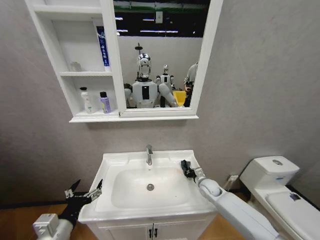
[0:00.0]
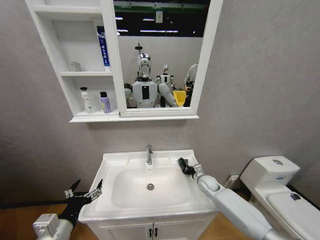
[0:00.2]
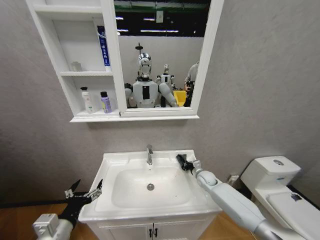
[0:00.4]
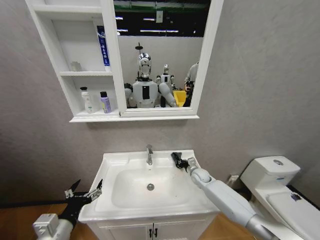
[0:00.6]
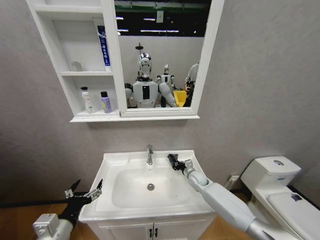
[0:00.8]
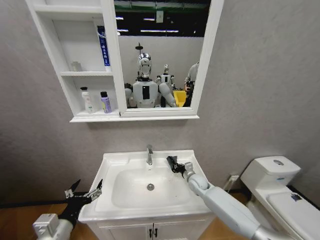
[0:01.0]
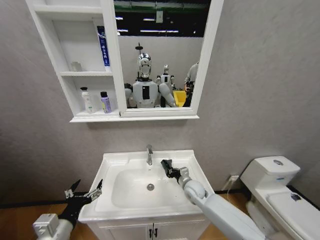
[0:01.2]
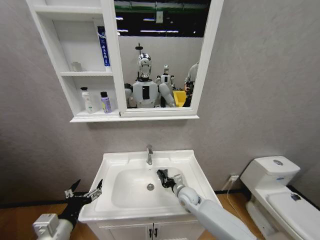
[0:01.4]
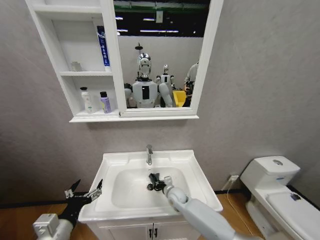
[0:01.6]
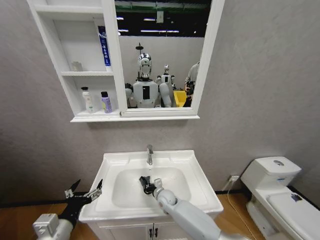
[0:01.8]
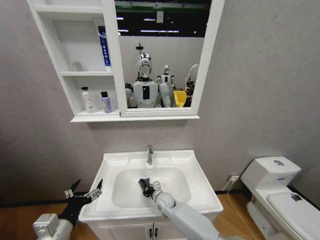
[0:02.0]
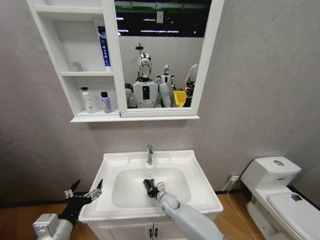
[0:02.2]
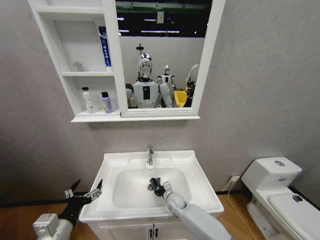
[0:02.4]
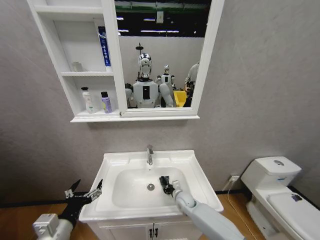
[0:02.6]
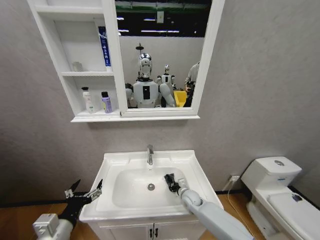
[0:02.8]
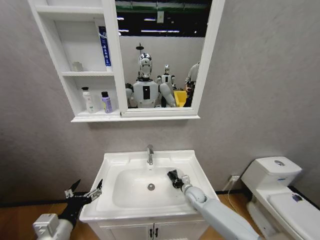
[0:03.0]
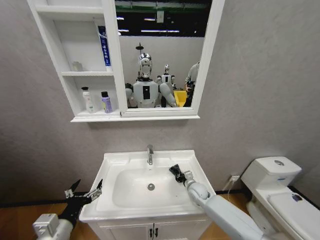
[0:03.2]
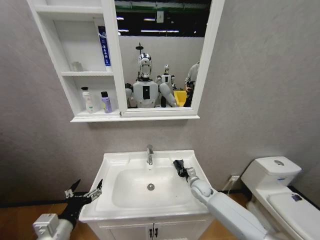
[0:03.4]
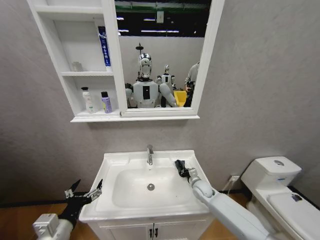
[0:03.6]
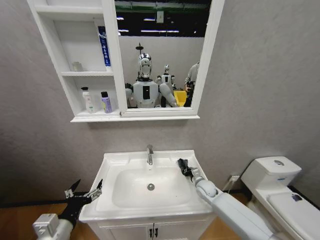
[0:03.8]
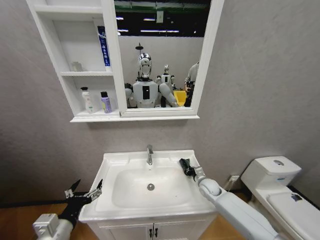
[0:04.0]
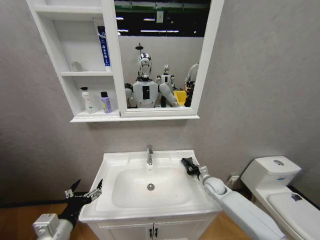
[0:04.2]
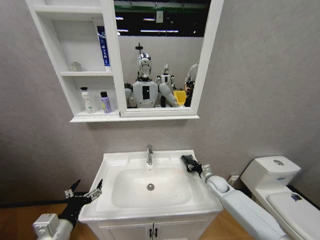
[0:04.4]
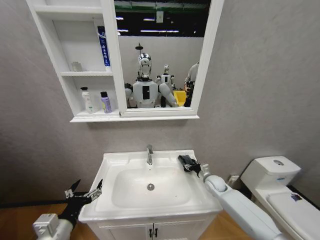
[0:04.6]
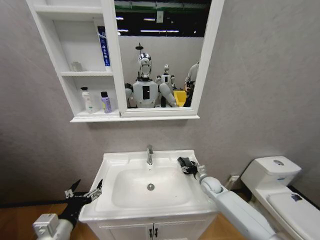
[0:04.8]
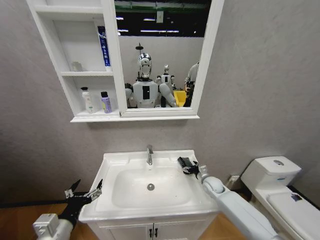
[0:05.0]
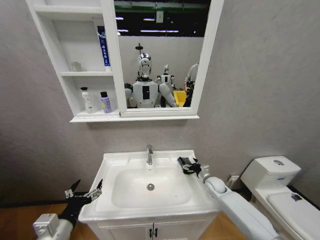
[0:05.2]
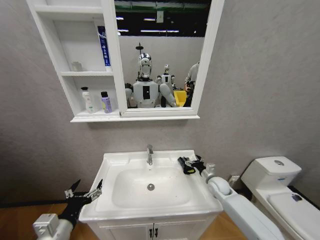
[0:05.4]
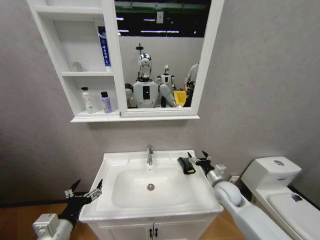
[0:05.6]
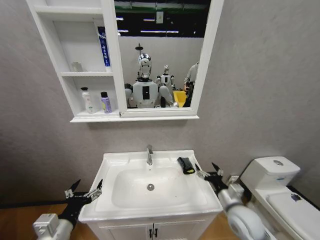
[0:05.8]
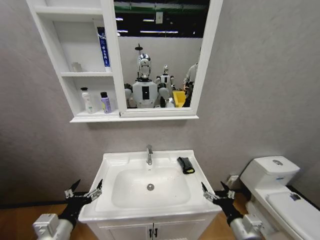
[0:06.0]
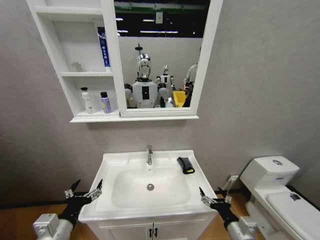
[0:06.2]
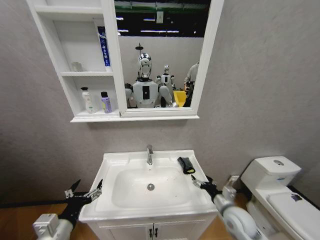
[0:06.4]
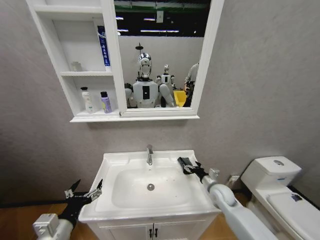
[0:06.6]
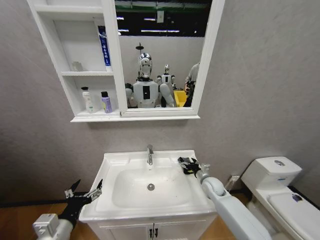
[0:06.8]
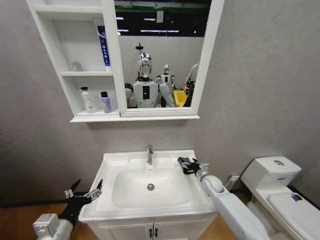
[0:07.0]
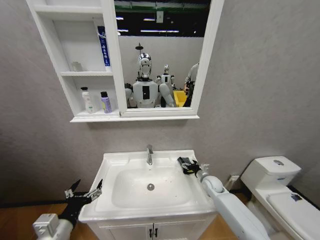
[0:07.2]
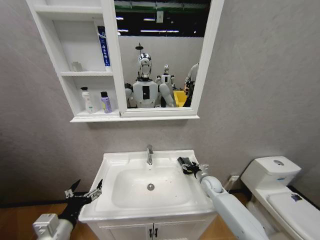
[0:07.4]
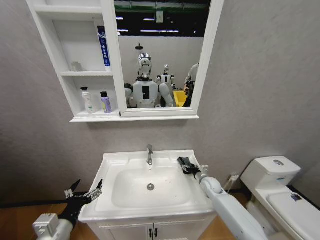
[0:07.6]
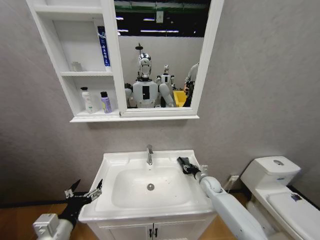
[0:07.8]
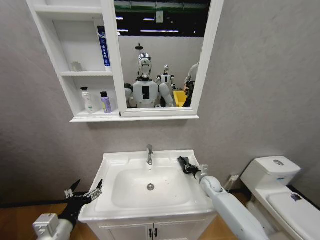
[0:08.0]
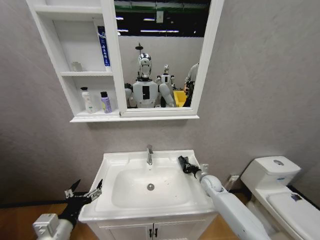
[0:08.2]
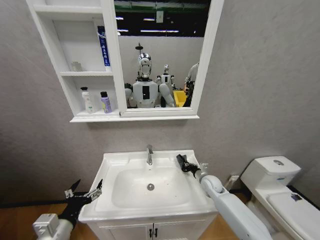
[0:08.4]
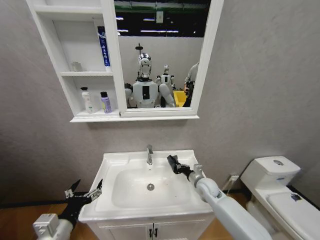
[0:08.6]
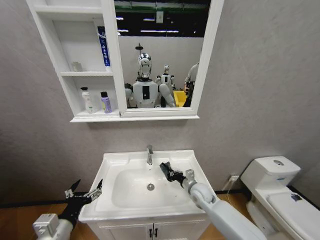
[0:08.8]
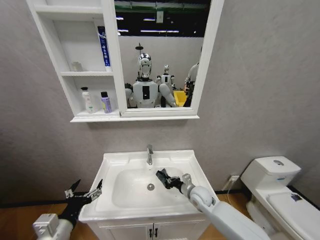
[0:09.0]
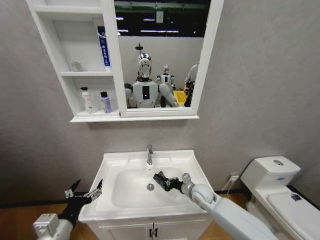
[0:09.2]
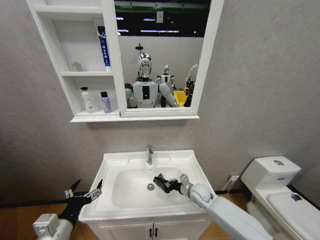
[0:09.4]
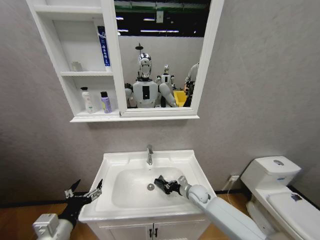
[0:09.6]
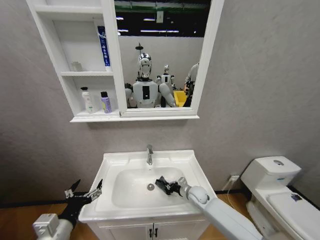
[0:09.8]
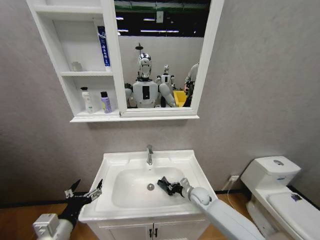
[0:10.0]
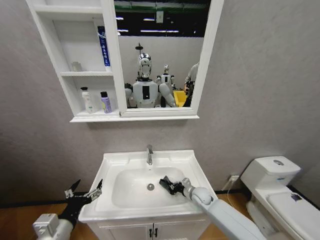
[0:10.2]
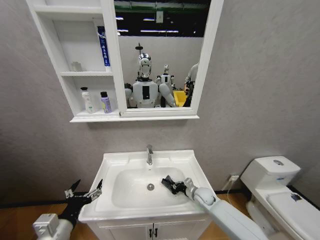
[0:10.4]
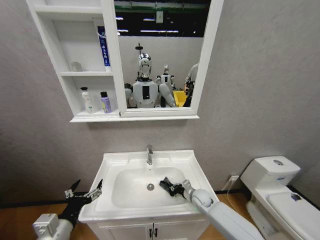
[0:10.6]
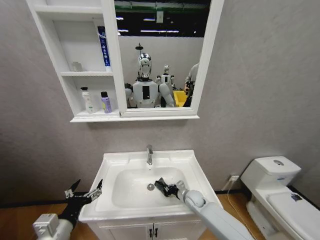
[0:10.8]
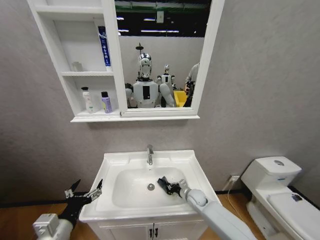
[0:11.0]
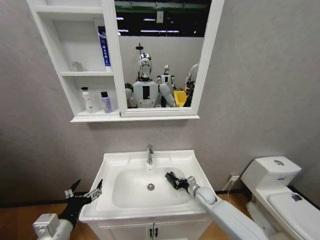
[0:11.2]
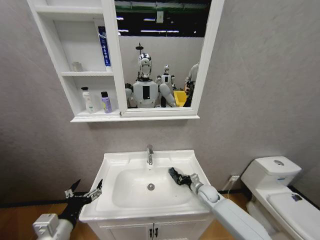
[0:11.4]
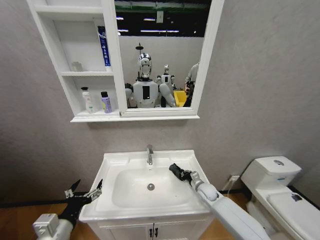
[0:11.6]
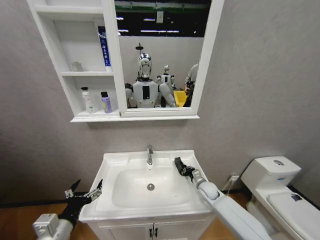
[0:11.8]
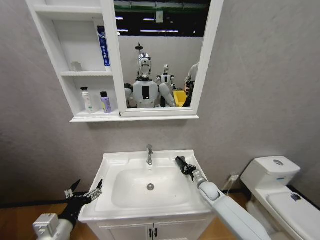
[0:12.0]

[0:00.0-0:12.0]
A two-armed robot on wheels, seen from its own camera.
Task of the whole recording: Move facial cleanser and shampoo from washbasin to cabinet, then wipe washbasin with towel.
0:00.0 to 0:01.6: The right gripper travels to the left by about 15 cm.
0:01.6 to 0:03.0: The right gripper goes roughly 10 cm to the right.
0:03.0 to 0:04.4: The right gripper travels to the right by some 10 cm.
0:04.4 to 0:06.0: The right gripper moves backward, about 25 cm, and opens up.
0:06.0 to 0:07.6: The right gripper shifts approximately 25 cm forward.
0:07.6 to 0:09.0: The right gripper shifts some 10 cm to the left and backward, and closes up.
0:09.0 to 0:10.4: The right gripper goes about 5 cm downward.

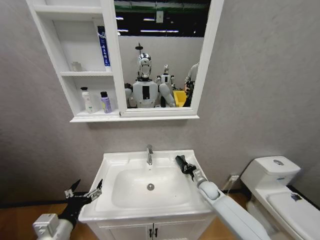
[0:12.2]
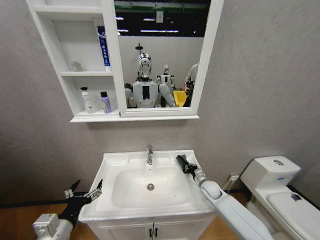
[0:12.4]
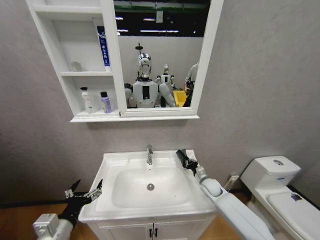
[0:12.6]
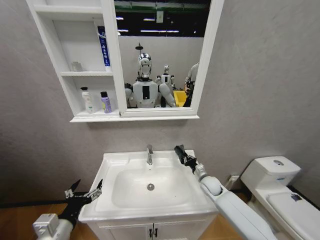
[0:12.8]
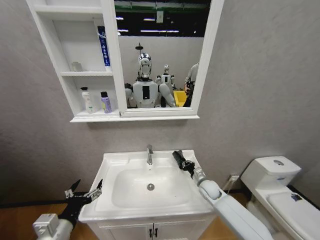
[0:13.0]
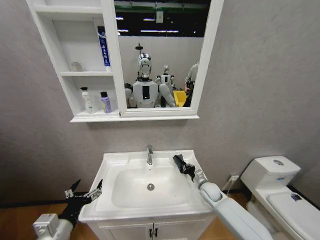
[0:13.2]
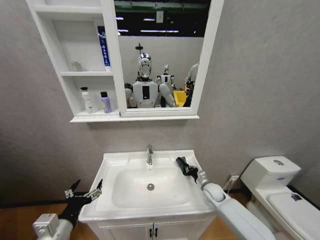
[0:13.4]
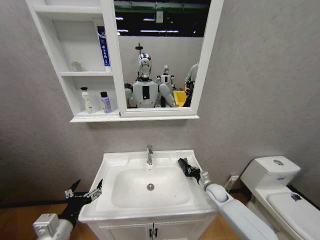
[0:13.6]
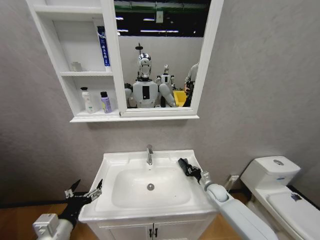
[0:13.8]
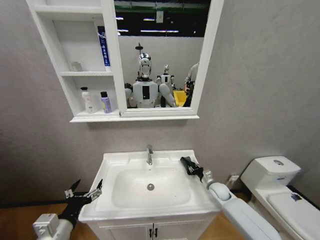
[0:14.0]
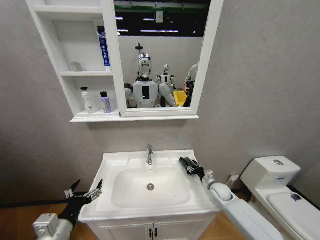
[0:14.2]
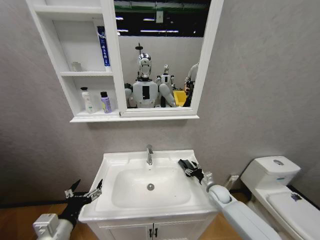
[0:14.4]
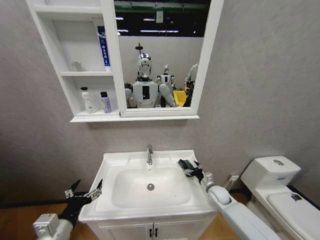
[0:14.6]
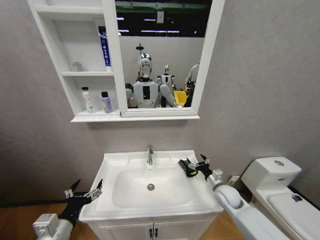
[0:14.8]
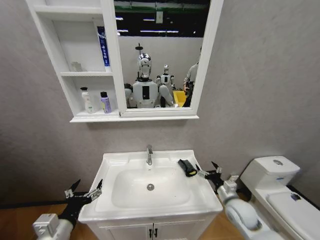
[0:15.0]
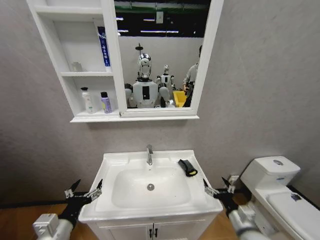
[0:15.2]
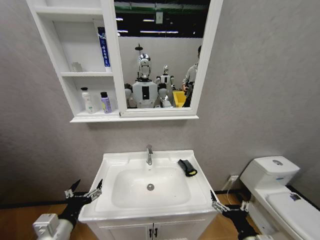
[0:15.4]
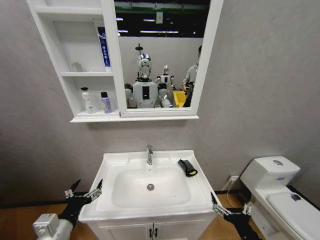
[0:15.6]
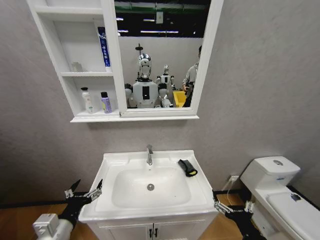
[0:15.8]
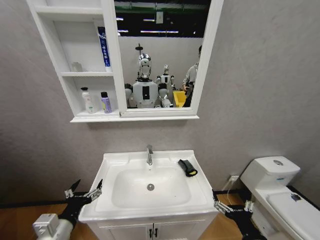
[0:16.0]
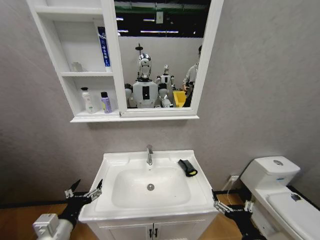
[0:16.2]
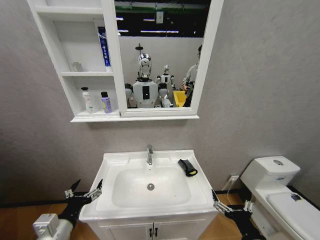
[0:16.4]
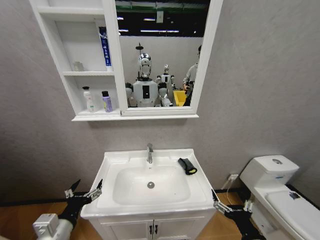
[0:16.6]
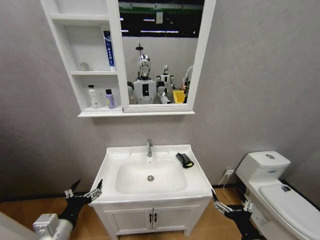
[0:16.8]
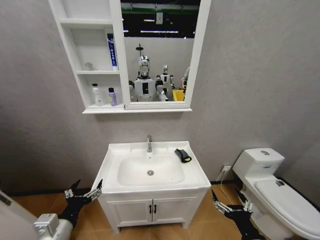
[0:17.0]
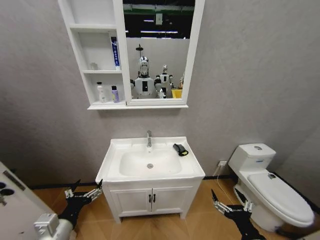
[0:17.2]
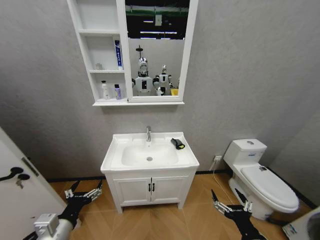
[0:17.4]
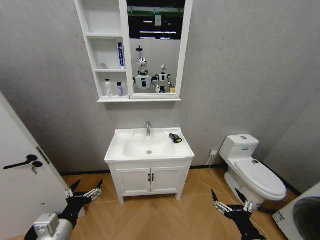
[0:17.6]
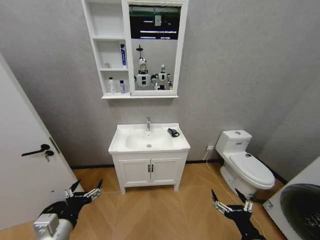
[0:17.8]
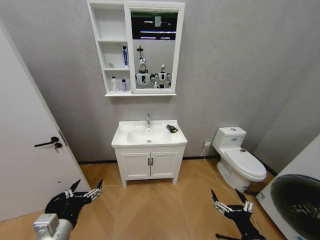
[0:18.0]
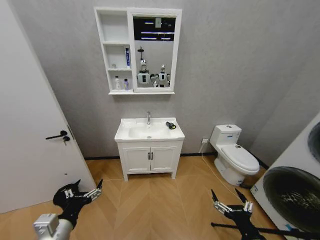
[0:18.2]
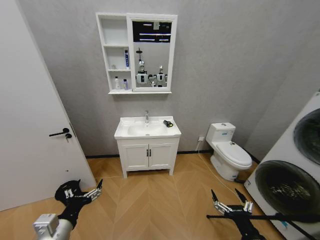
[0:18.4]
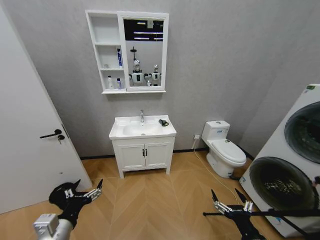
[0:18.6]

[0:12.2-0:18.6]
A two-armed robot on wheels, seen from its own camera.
Task of the whole recording: Move facial cleanser and shampoo from washbasin to cabinet, then wipe washbasin with towel.
0:12.2 to 0:13.8: The grippers make only small movements.
0:13.8 to 0:15.4: The right gripper travels backward and upward by roughly 35 cm, and opens up.
